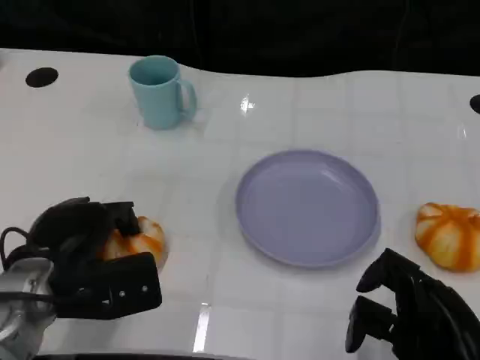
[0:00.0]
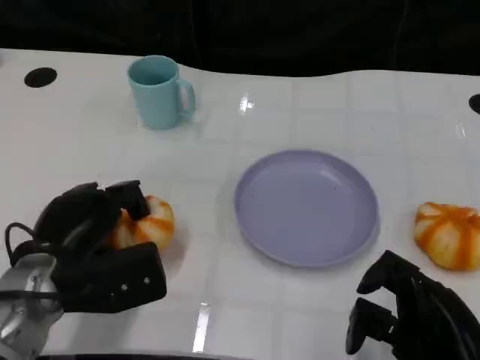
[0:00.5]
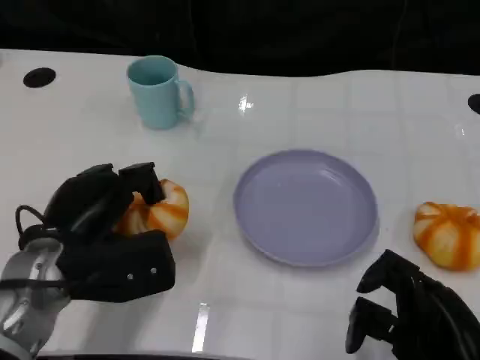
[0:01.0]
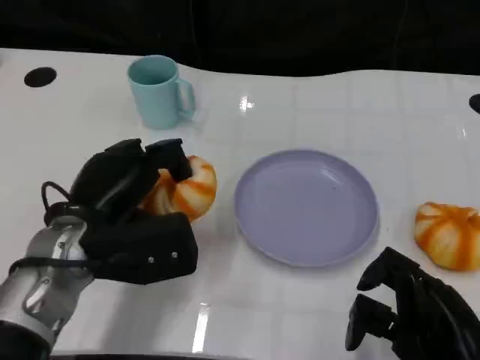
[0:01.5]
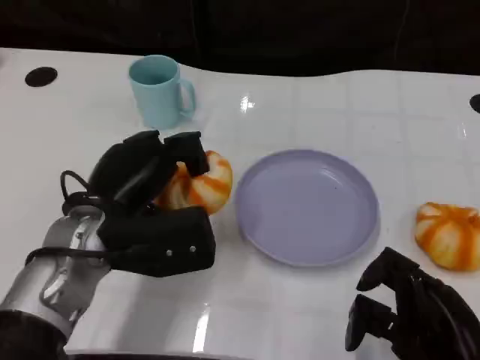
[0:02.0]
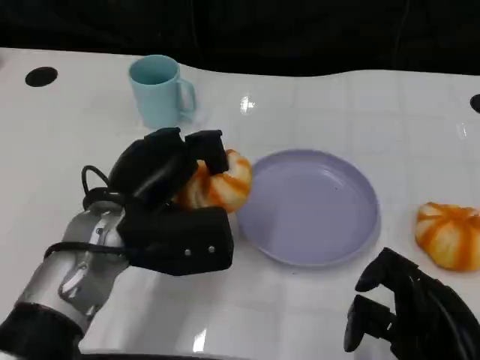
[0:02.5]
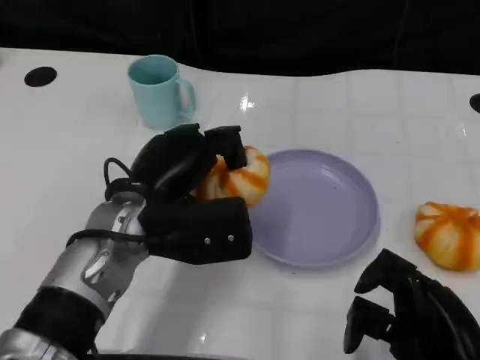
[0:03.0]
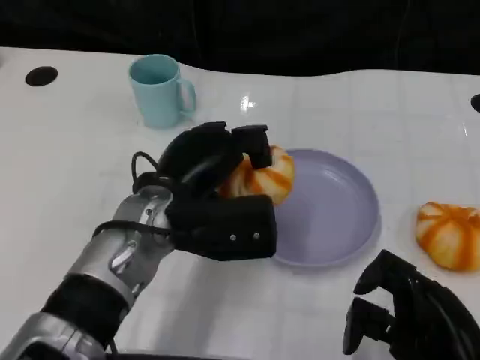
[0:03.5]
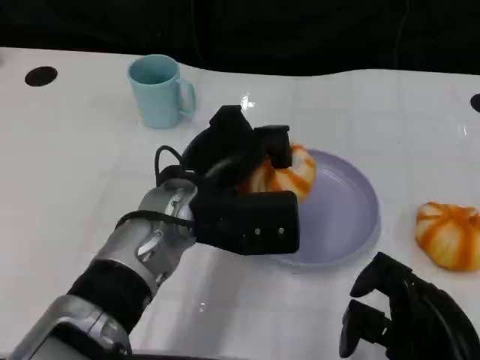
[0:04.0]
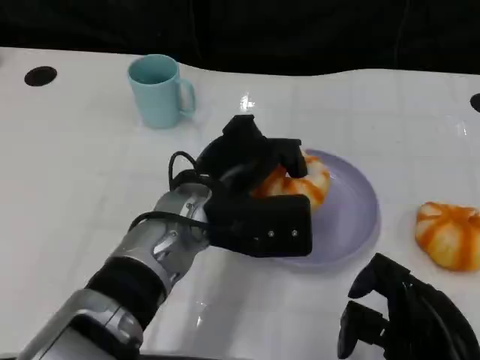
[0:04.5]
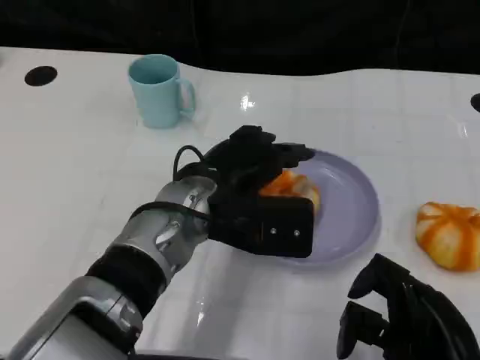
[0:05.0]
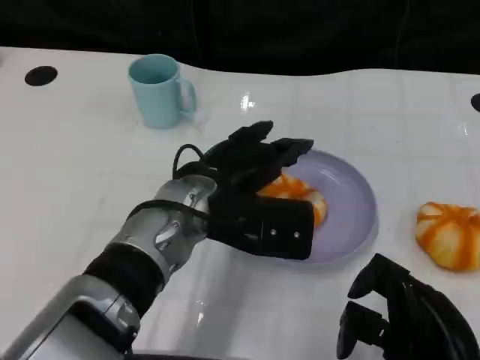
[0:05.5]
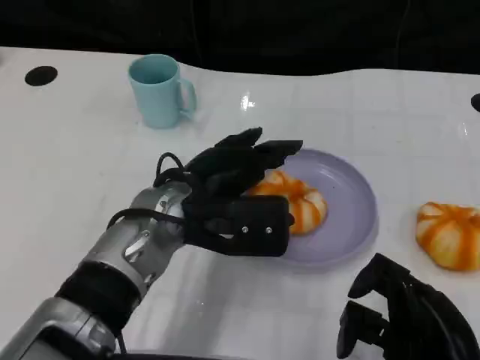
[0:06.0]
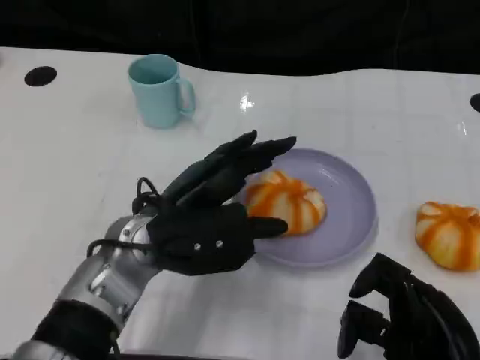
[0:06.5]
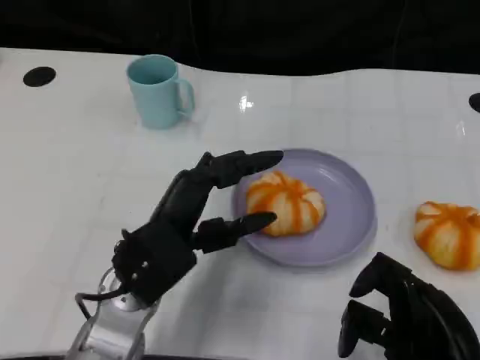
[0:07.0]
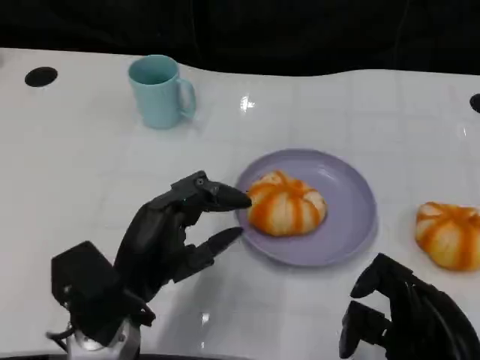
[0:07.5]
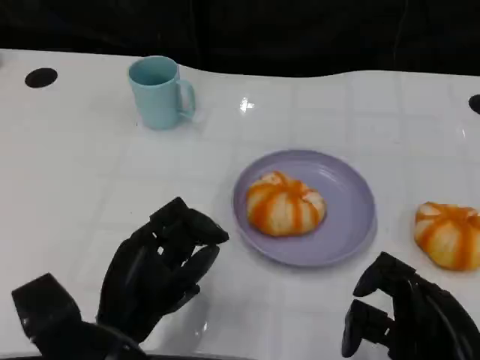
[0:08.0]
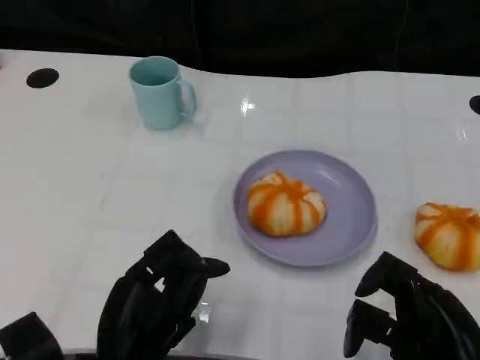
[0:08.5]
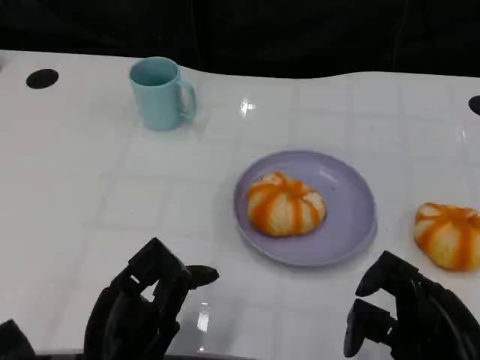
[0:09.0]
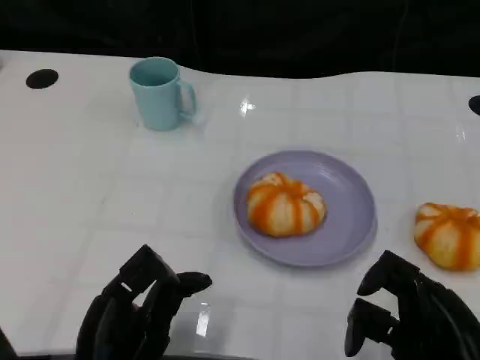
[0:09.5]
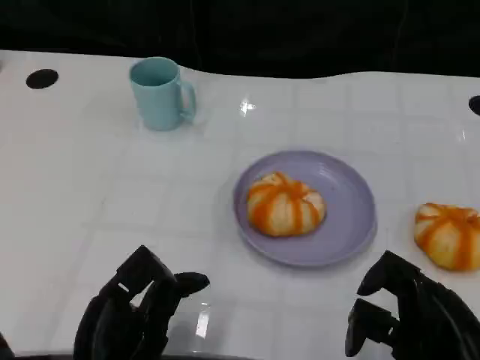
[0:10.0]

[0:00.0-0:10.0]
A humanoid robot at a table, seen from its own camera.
Task of the whole recording: Grasp the bread from the table and place it into the plate.
0:00.0 to 0:02.0: The left hand heads to the right and upward, covering roughly 10 cm.
0:02.0 to 0:04.0: The left hand moves to the right, about 10 cm.
0:04.0 to 0:06.0: The hands make only small movements.
0:06.0 to 0:08.0: The left hand heads backward, to the left and downward, covering roughly 15 cm.

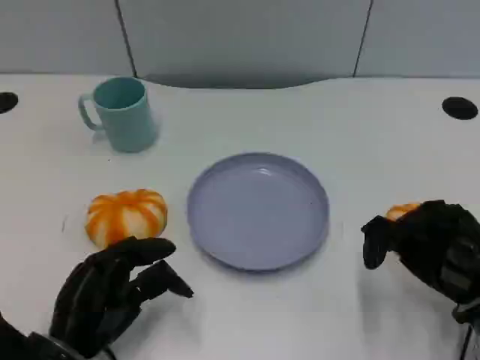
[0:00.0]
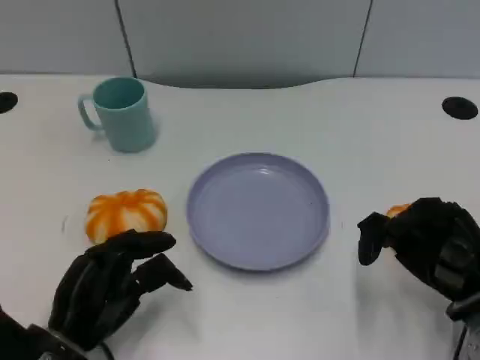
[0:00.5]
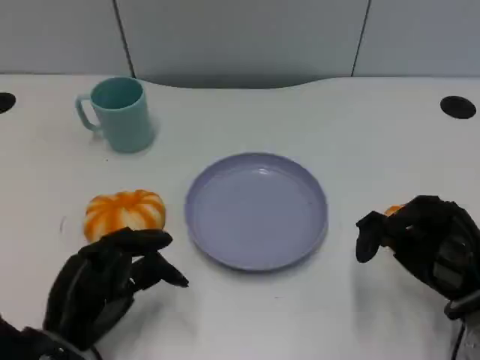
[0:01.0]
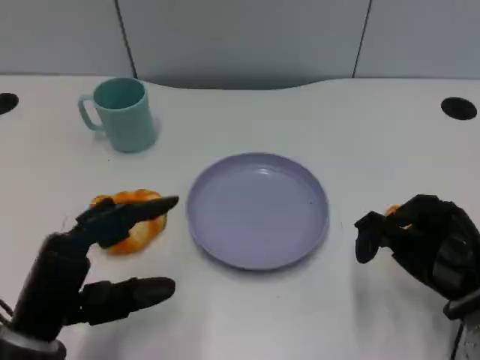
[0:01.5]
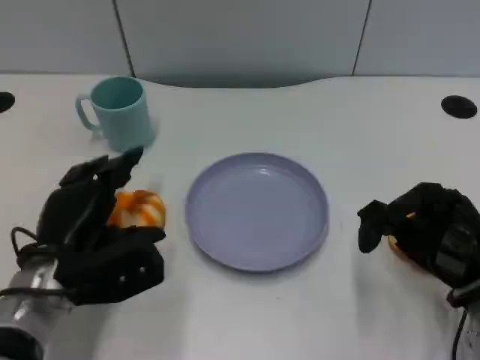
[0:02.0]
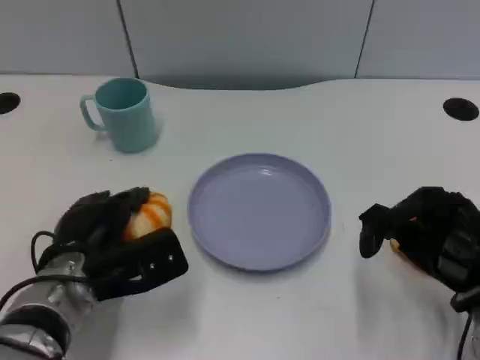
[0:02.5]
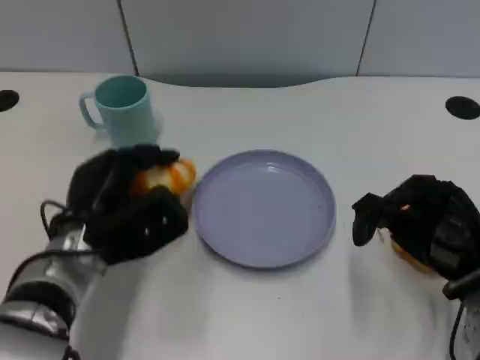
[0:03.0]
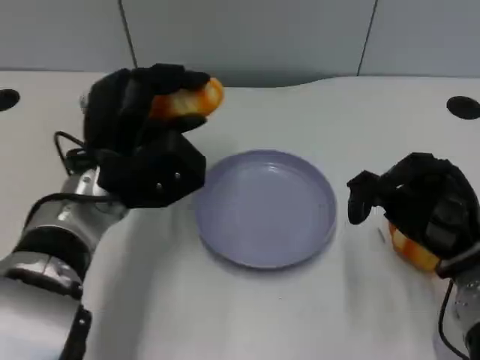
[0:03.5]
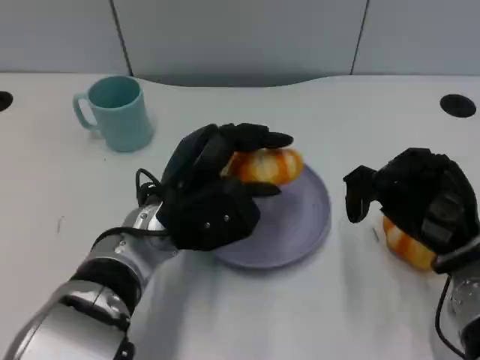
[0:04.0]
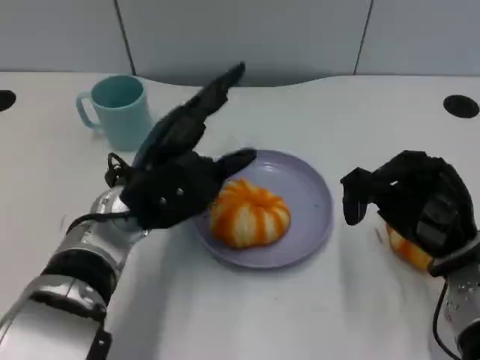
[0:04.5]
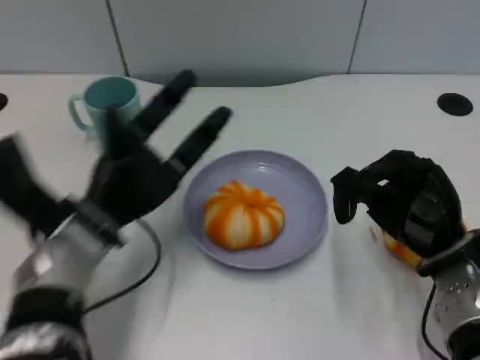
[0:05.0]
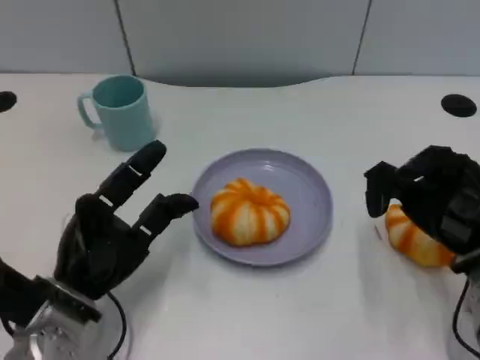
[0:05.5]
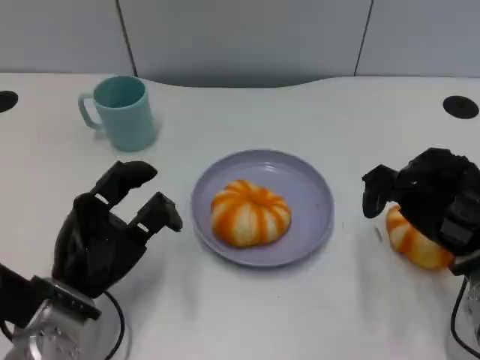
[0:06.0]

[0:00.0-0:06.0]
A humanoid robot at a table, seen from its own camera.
Task of the whole recording: Grasp the bread from the table and place it into the plate.
0:00.0 to 0:02.0: The left hand travels forward by about 5 cm.
0:02.0 to 0:04.0: The left hand shifts roughly 10 cm to the right and upward.
0:04.0 to 0:06.0: The left hand shifts some 15 cm to the left, backward and downward.

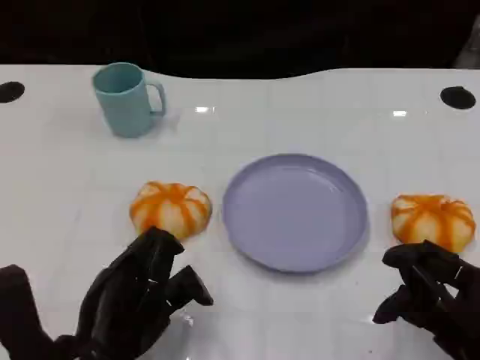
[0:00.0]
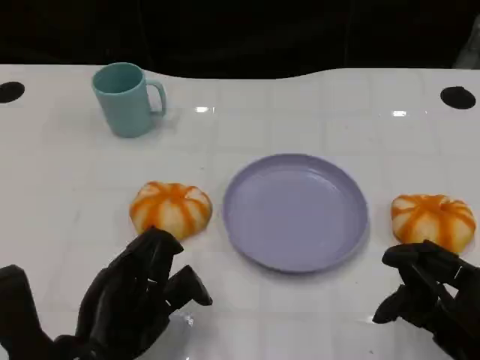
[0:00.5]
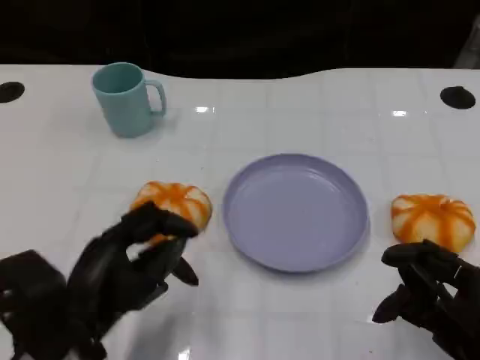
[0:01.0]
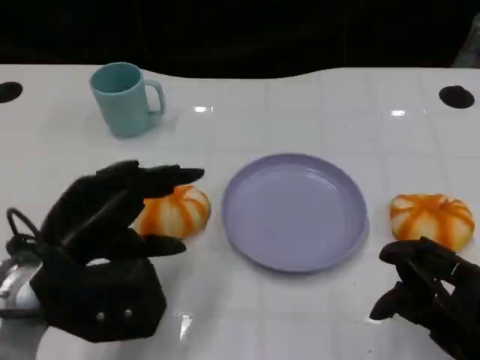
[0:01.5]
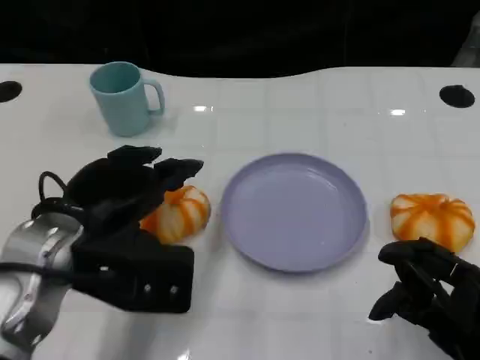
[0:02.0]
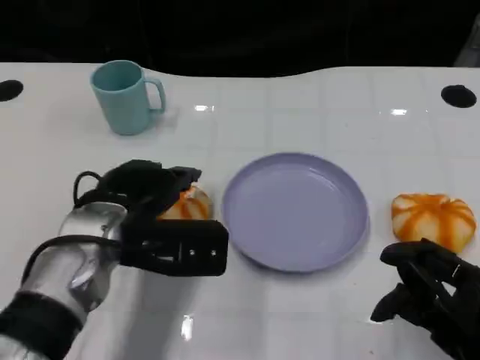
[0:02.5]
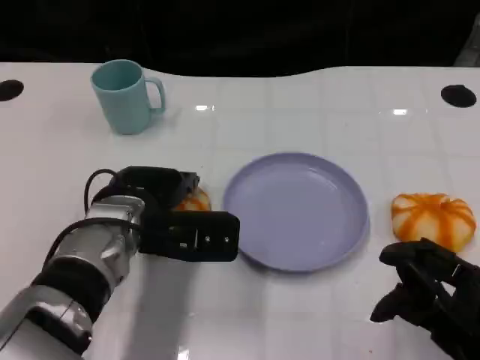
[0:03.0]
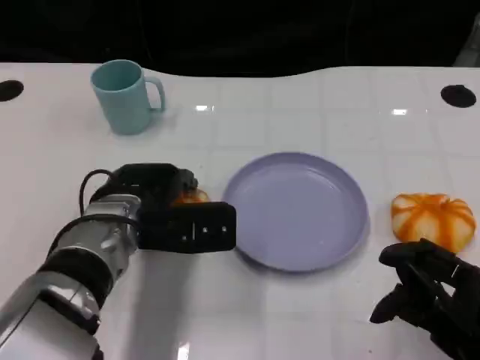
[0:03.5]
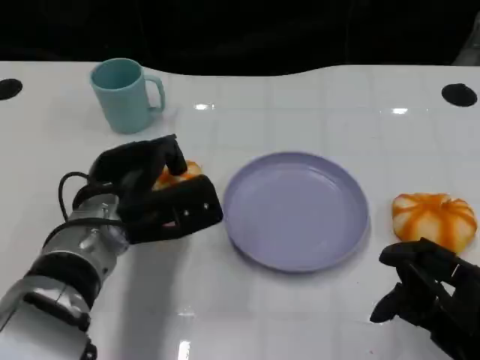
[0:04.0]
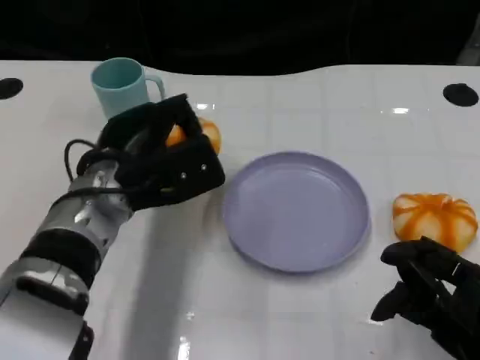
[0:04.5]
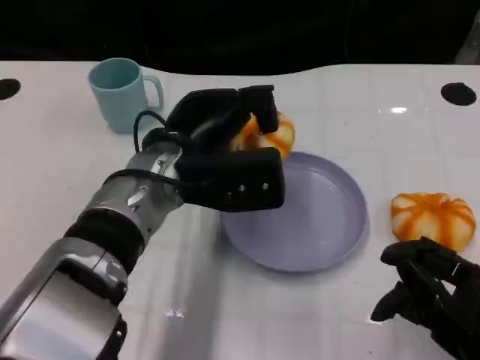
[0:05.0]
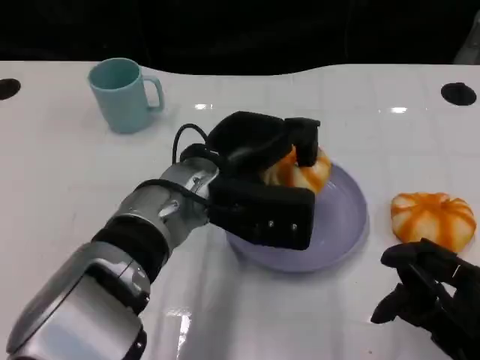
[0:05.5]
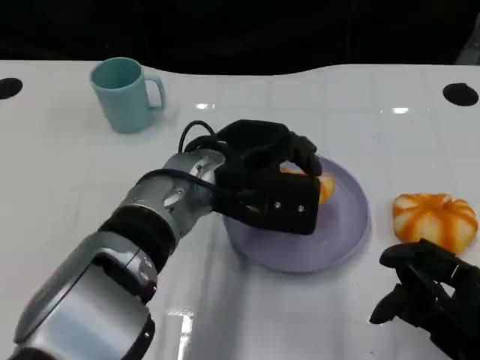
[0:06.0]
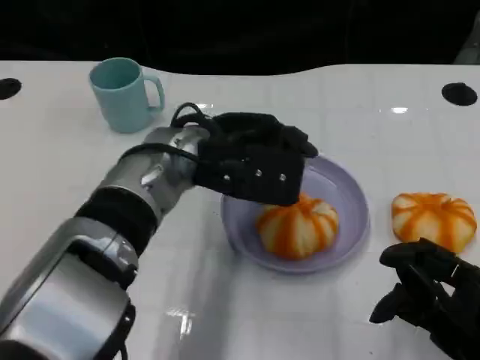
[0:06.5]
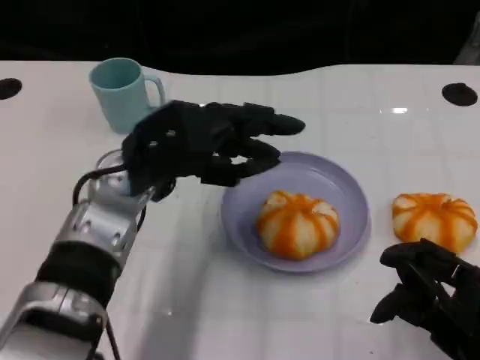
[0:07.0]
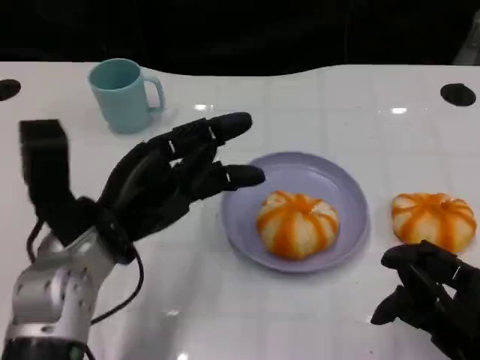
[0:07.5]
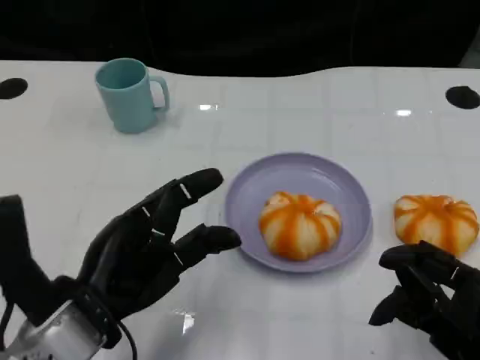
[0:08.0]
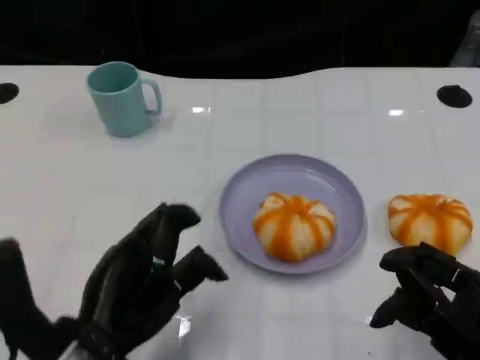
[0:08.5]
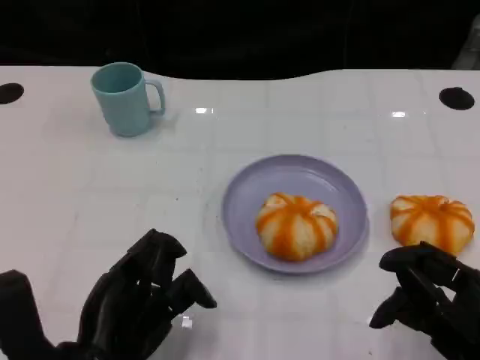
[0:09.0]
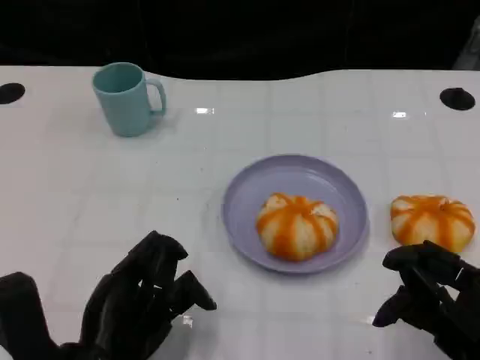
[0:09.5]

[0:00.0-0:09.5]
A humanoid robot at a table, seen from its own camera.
Task of the whole recording: Grasp the bread from the table and place it into the plate.
0:00.0 to 0:02.0: The left hand goes approximately 10 cm forward and upward.
0:02.0 to 0:04.0: The left hand heads forward and downward, covering some 10 cm.
0:04.0 to 0:05.5: The left hand is displaced to the right by some 10 cm.
0:05.5 to 0:07.5: The left hand moves to the left, about 10 cm.
0:07.5 to 0:09.5: The left hand heads backward and downward, covering roughly 10 cm.
